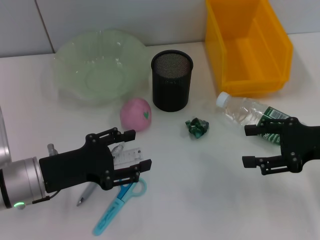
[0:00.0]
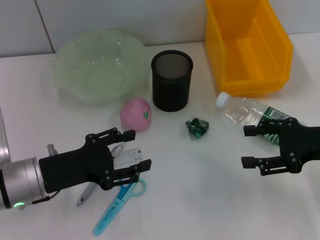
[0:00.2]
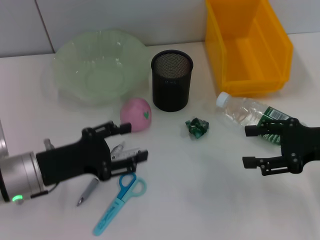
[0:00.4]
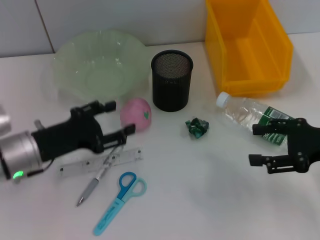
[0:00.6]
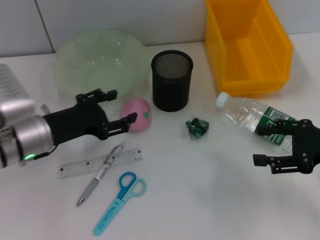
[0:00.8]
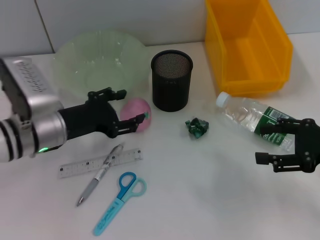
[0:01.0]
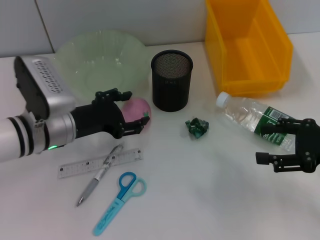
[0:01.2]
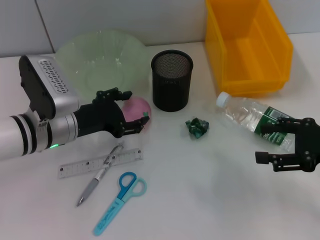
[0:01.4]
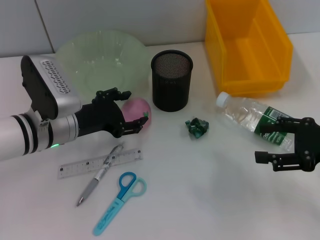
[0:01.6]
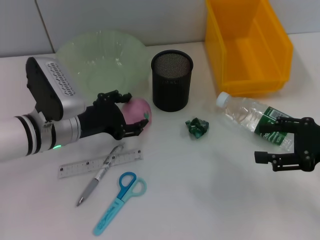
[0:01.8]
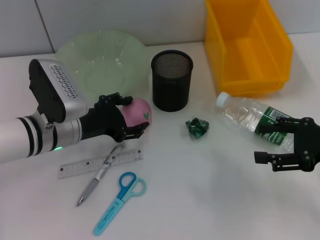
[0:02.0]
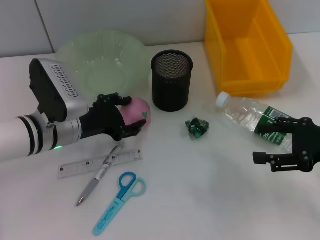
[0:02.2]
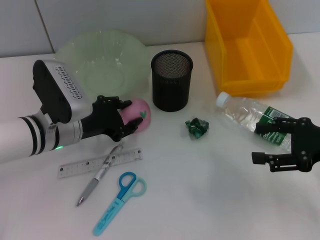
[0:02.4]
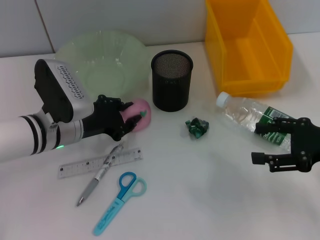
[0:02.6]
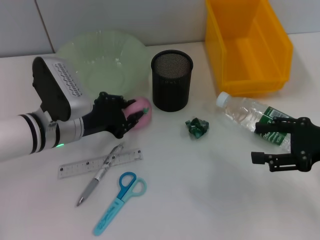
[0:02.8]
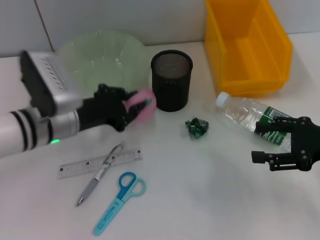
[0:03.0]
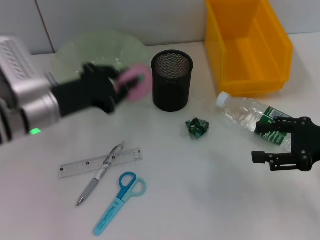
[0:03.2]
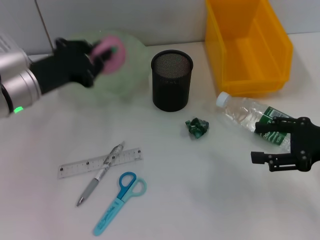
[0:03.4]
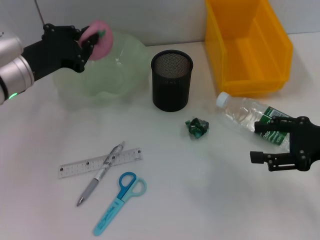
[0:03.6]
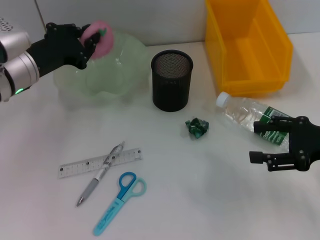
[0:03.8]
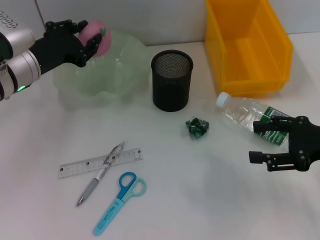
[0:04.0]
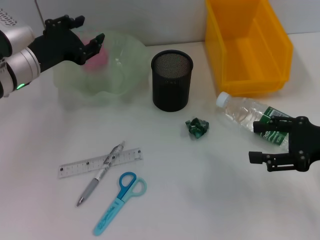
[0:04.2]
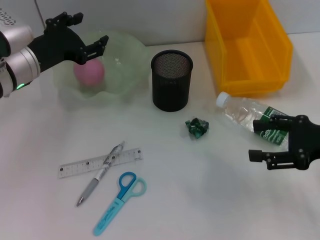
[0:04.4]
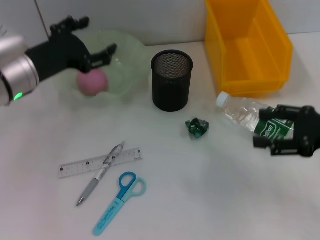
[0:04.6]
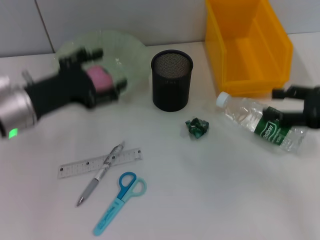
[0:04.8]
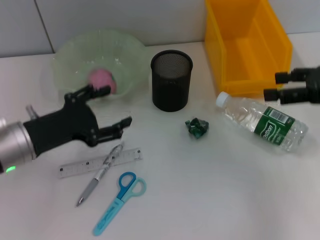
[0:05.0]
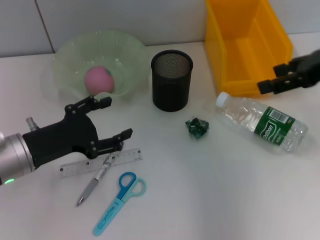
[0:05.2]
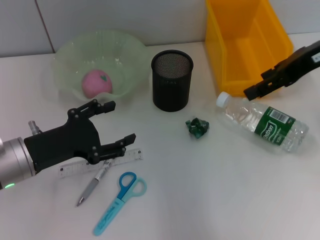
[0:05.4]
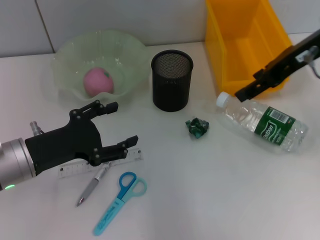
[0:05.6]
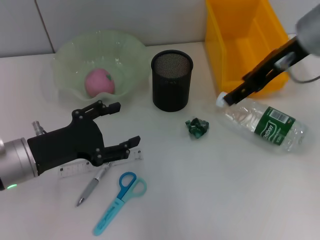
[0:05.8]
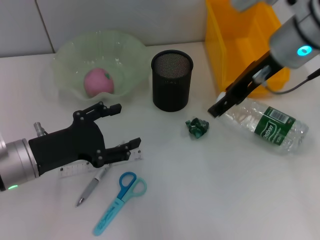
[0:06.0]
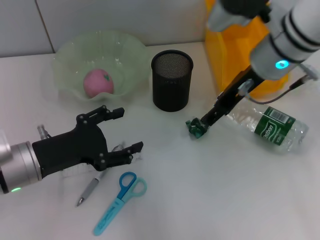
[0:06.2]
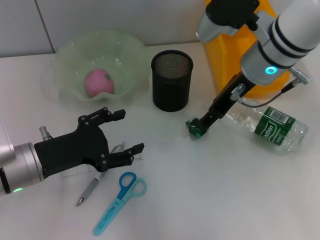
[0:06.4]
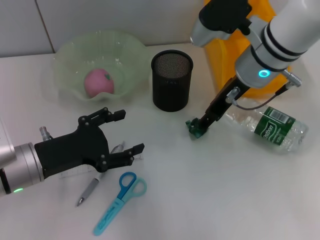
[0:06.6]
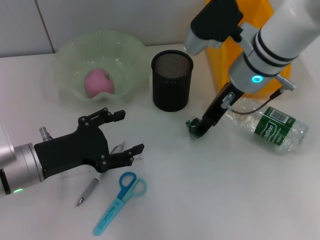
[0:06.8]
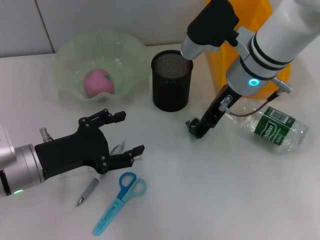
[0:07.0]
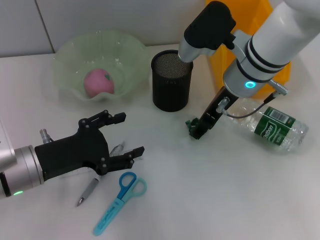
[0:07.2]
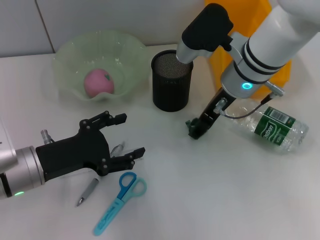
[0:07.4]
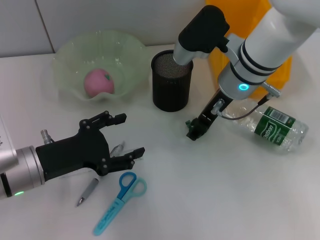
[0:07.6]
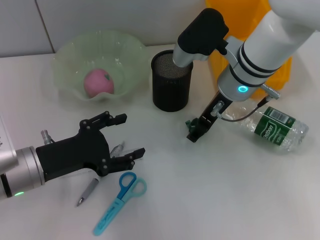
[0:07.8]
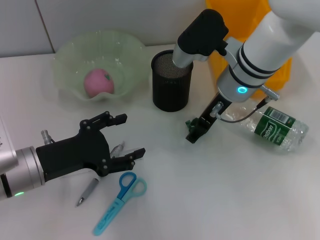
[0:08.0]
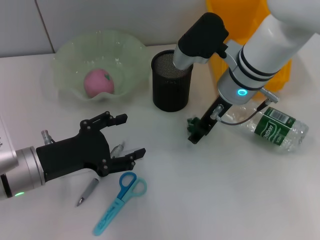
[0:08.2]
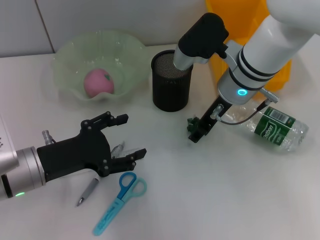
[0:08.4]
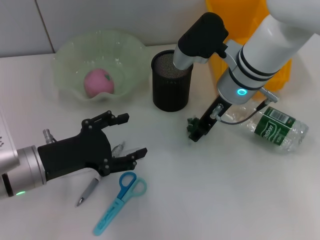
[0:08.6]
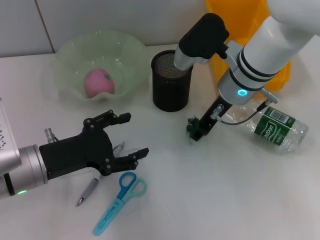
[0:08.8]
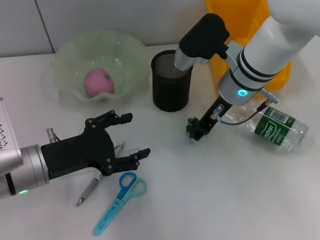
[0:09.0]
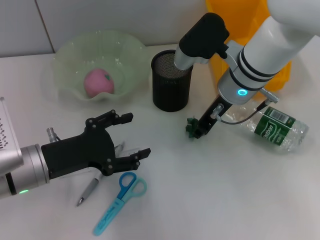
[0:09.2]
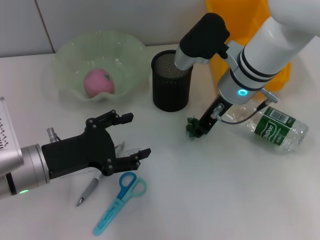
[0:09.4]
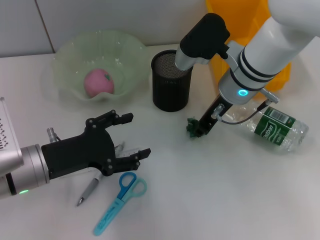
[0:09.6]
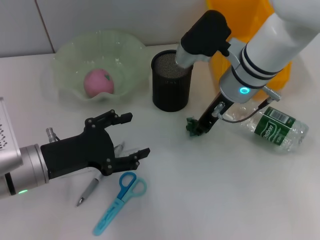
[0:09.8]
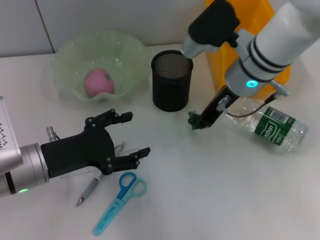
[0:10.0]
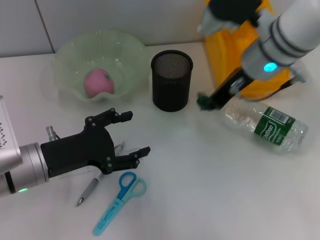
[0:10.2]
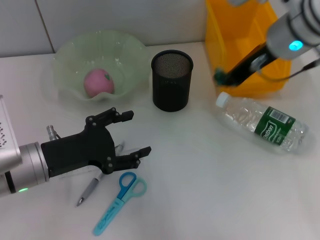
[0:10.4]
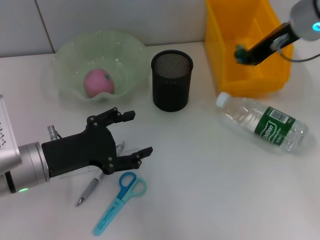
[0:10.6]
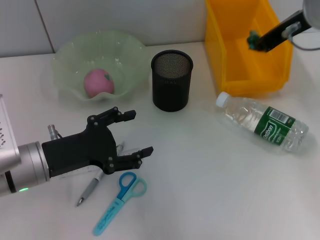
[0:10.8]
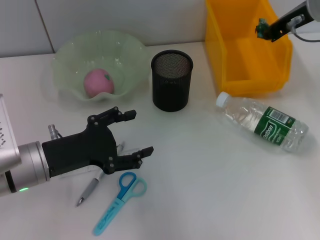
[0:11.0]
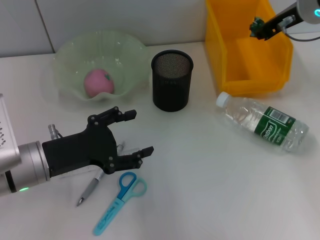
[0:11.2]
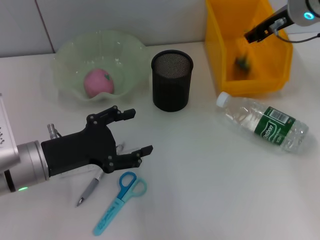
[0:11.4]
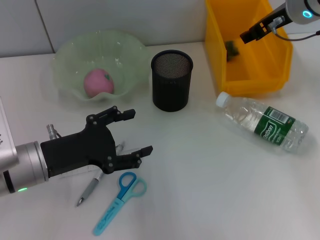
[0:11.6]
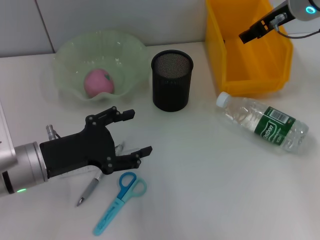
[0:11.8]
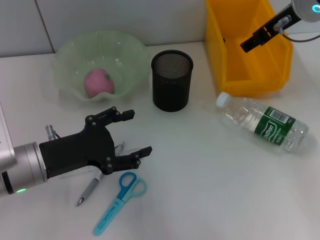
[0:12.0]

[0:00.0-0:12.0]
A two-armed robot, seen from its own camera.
Step, 0:00.0 to 0:02.4: Grab the peach with the left hand.
Step, 0:02.6 to 0:05.2: Place the peach into the fruit bowl with the left hand.
Step, 0:05.4 to 0:09.6: Grab the plastic with the right hand.
Step, 0:09.8 to 0:11.6: Place the plastic into the trash can with the right hand.
0:00.0 to 0:01.6: The left gripper heads forward, covering about 10 cm.
0:01.6 to 0:03.0: The left gripper closes its fingers.
0:03.0 to 0:04.4: The left gripper goes about 5 cm upward.
0:04.4 to 0:06.0: The right gripper shifts roughly 20 cm to the left, forward and upward. Meanwhile the left gripper is displaced backward and downward by about 15 cm.
0:06.0 to 0:07.6: The right gripper moves downward and to the left, roughly 10 cm.
0:07.6 to 0:09.0: The right gripper closes.
0:09.0 to 0:10.4: The right gripper goes approximately 10 cm upward and to the right, and closes up.
0:10.4 to 0:12.0: The right gripper ends up some 5 cm from where it was, and opens.

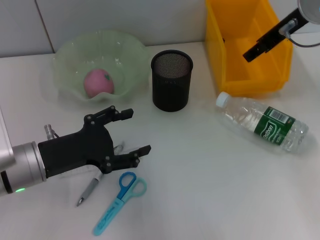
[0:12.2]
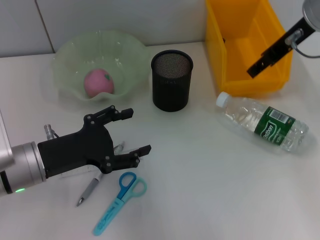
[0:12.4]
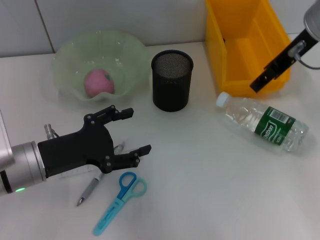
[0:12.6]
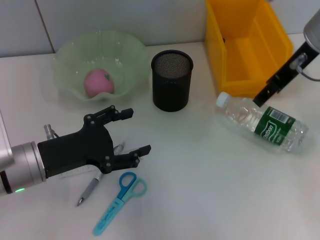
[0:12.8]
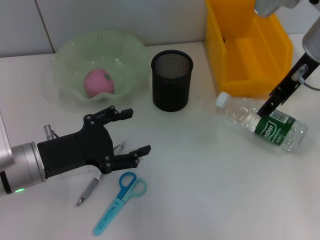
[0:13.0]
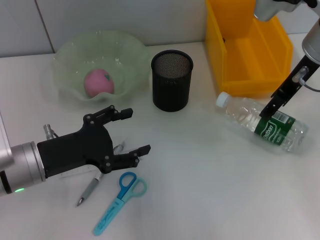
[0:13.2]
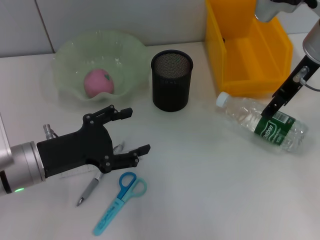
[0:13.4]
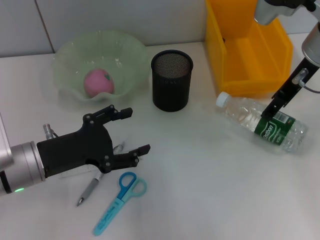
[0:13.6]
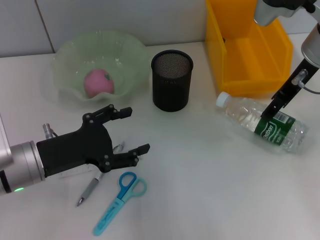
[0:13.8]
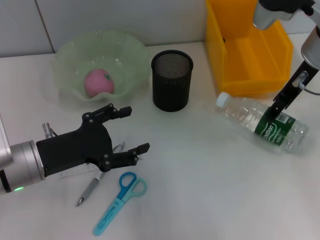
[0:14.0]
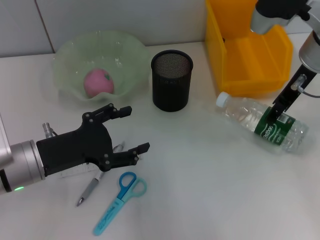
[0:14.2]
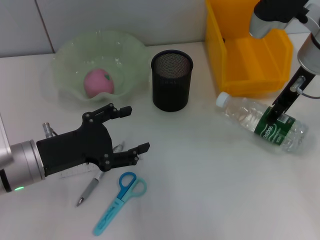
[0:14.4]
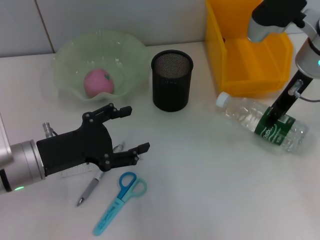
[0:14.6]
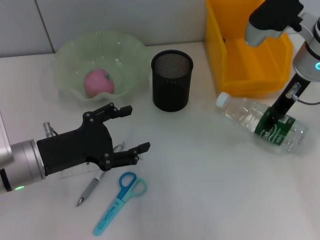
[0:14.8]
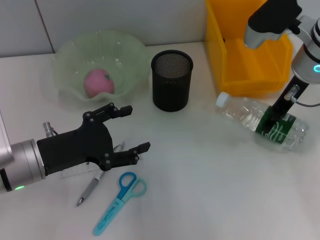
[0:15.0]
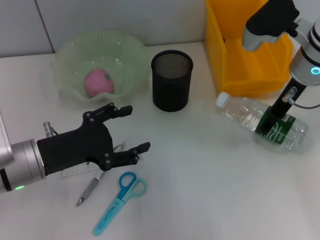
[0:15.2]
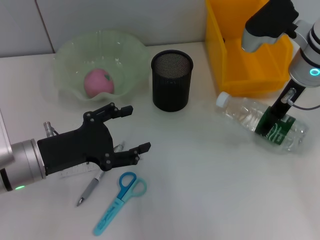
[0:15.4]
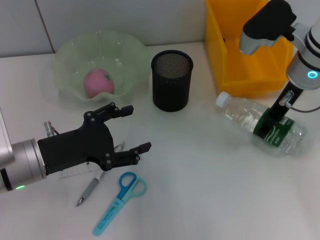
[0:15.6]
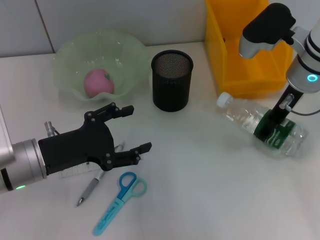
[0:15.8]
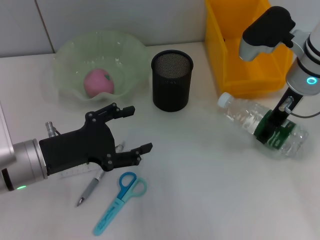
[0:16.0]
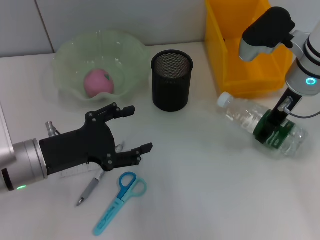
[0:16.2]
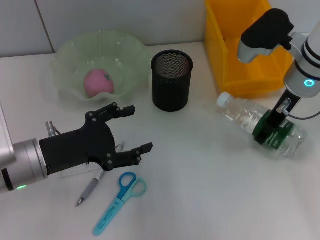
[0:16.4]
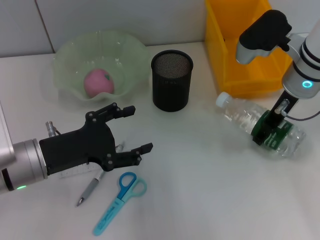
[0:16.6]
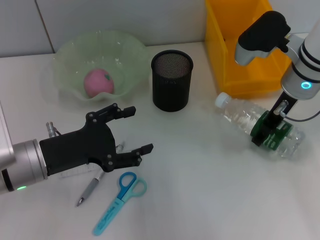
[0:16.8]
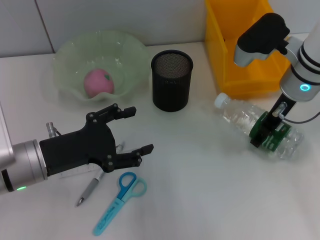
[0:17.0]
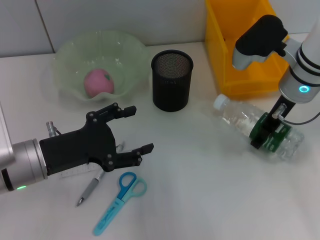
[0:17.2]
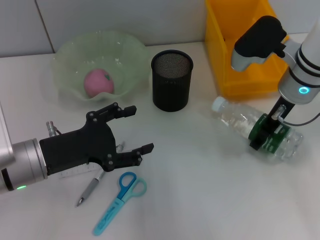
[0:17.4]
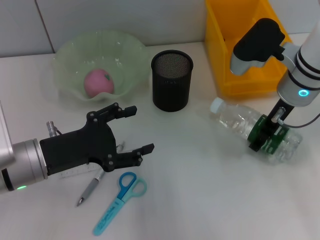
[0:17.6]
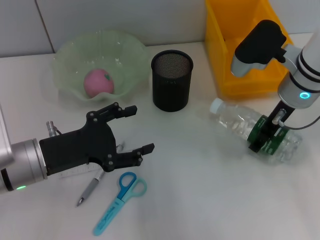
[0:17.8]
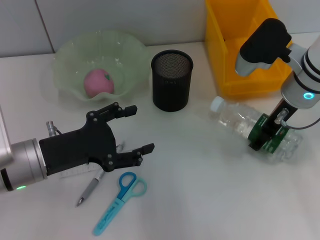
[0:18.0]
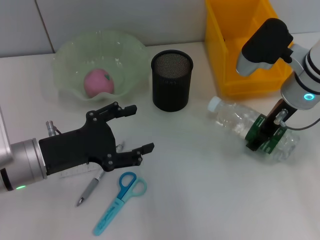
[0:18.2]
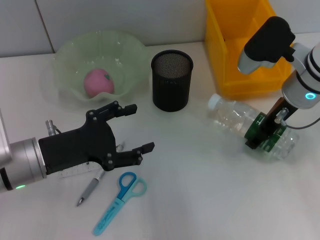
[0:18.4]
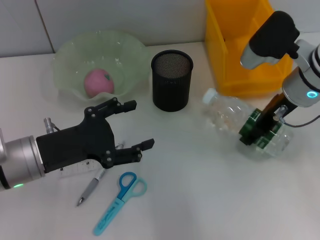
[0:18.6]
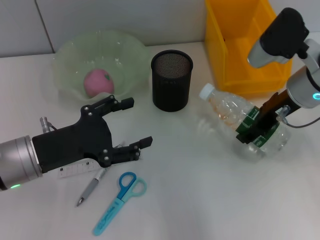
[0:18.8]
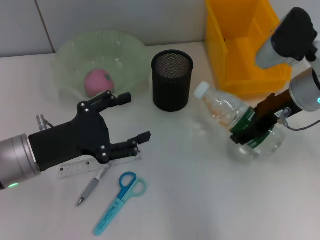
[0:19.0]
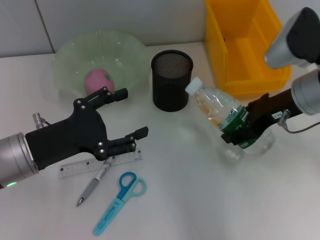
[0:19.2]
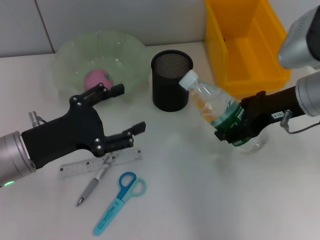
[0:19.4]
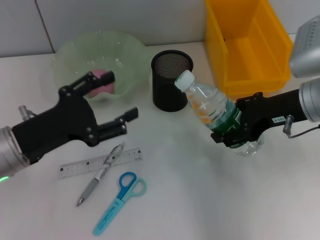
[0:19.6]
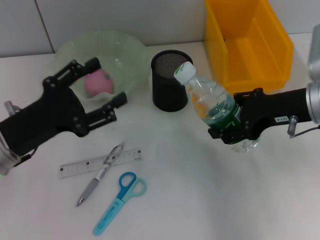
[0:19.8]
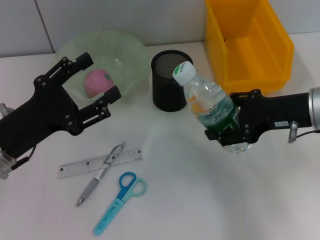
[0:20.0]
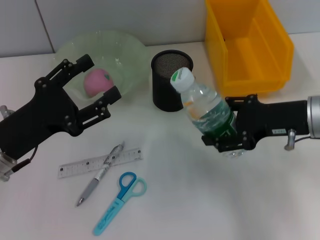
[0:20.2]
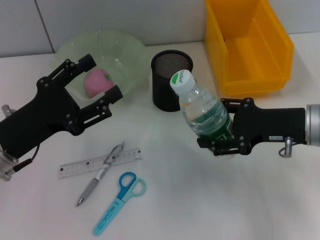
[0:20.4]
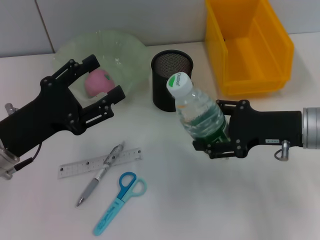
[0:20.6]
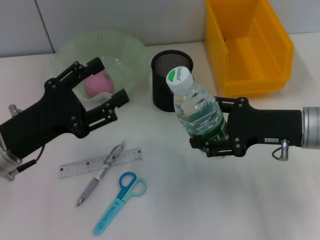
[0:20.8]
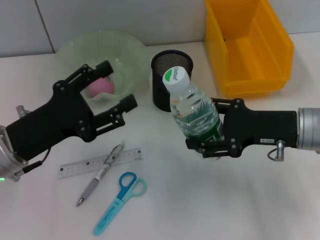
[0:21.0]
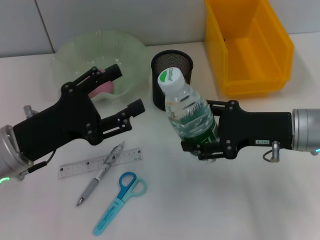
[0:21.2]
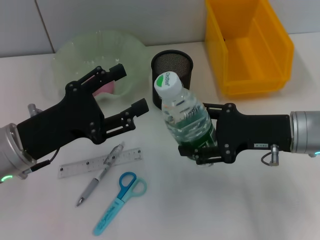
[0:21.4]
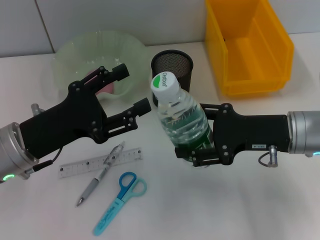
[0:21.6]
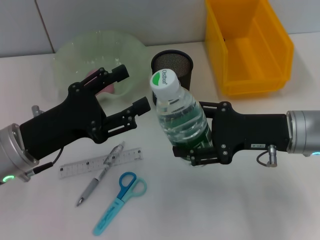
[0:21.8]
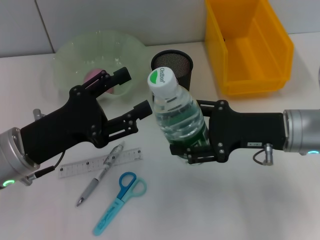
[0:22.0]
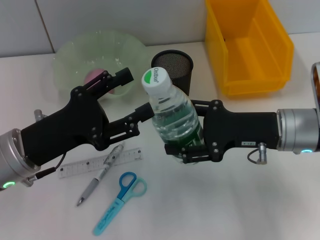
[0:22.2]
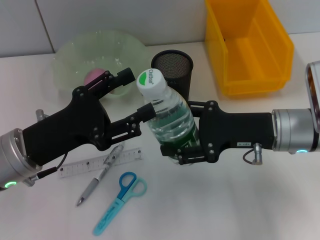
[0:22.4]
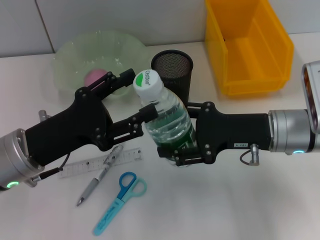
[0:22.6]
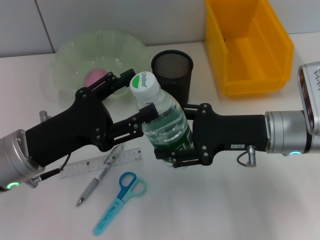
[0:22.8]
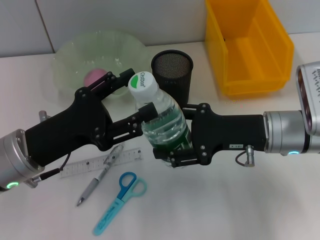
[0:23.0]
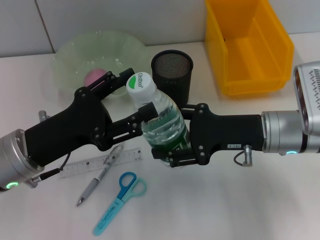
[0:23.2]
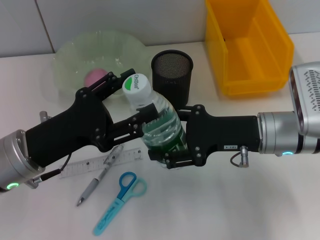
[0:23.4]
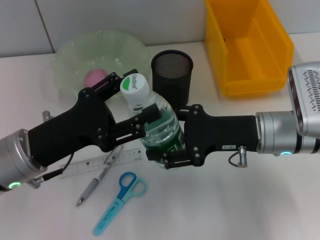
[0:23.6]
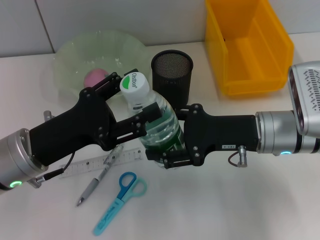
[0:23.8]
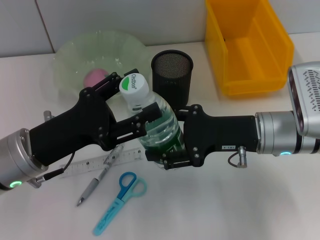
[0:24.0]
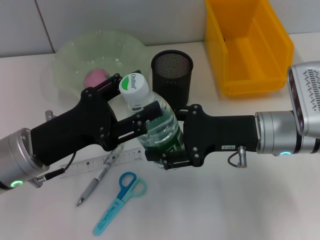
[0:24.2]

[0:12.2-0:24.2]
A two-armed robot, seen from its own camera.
Step, 0:12.2 to 0:17.6: Grab the water bottle with the right hand.
0:13.8 to 0:16.6: The grippers move only a little.
0:16.6 to 0:18.2: There are only small adjustments of the grippers.
0:18.2 to 0:19.8: The right gripper travels backward by approximately 5 cm.
0:19.8 to 0:21.2: The right gripper travels downward by approximately 5 cm.
0:21.2 to 0:24.2: The grippers make only small movements.
